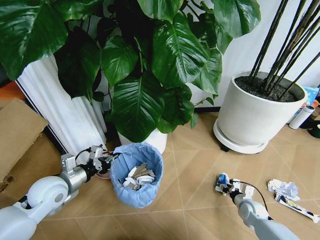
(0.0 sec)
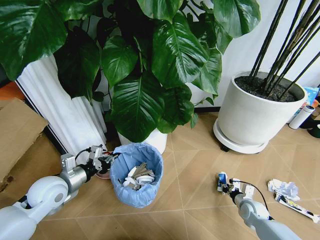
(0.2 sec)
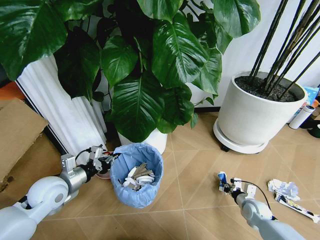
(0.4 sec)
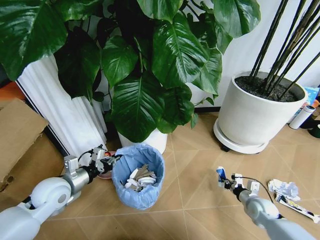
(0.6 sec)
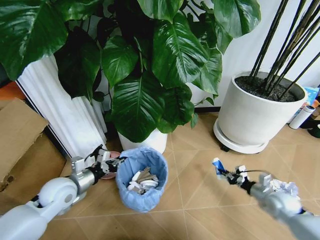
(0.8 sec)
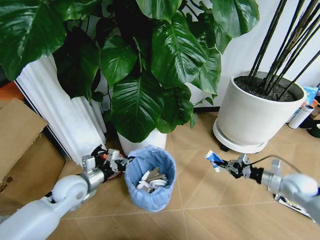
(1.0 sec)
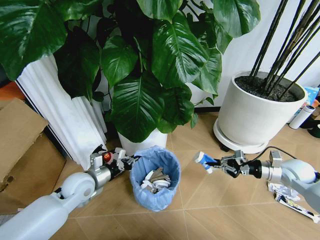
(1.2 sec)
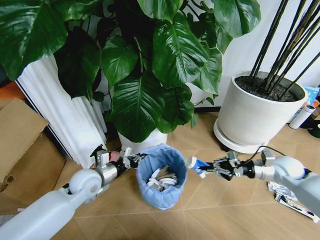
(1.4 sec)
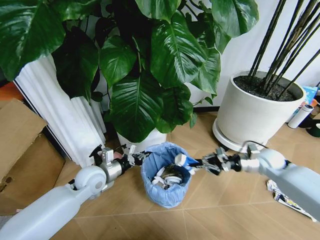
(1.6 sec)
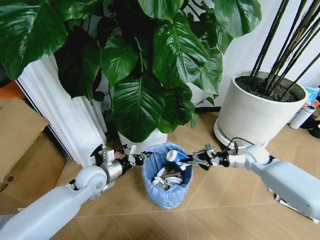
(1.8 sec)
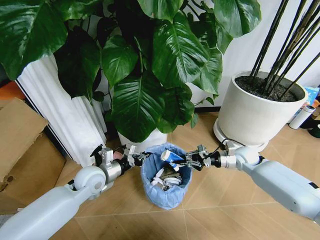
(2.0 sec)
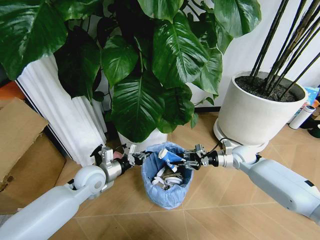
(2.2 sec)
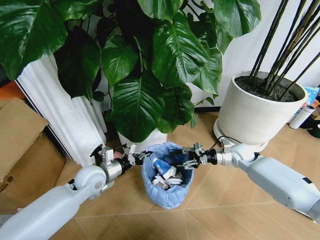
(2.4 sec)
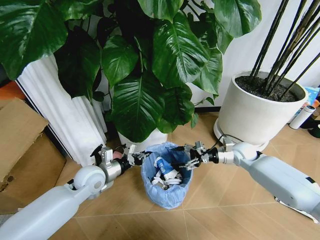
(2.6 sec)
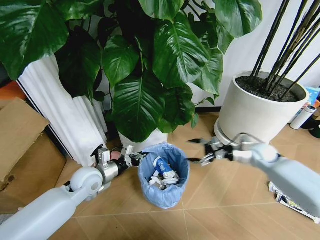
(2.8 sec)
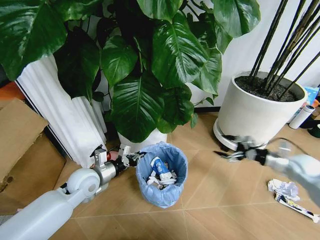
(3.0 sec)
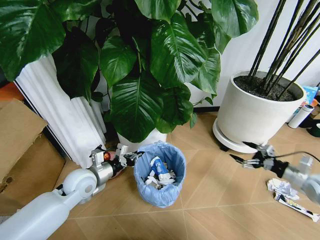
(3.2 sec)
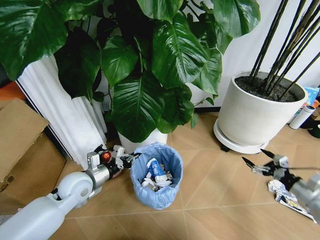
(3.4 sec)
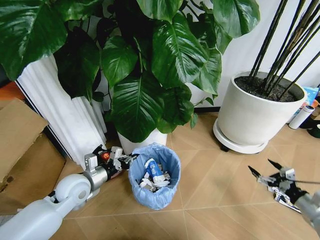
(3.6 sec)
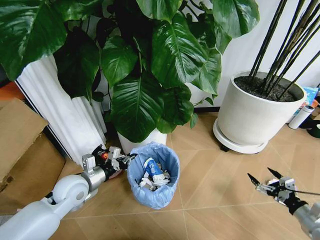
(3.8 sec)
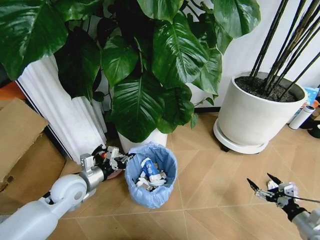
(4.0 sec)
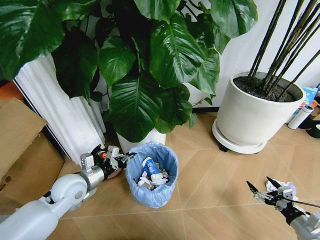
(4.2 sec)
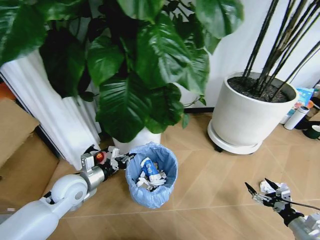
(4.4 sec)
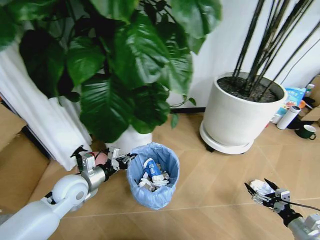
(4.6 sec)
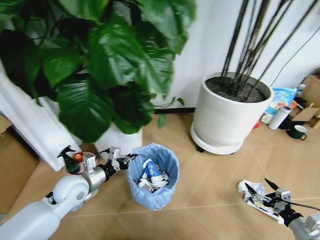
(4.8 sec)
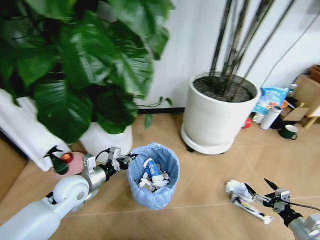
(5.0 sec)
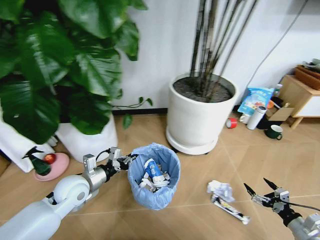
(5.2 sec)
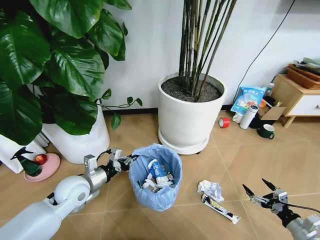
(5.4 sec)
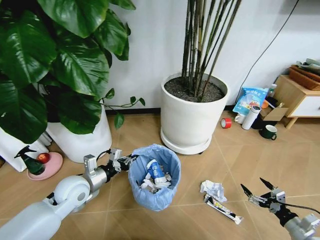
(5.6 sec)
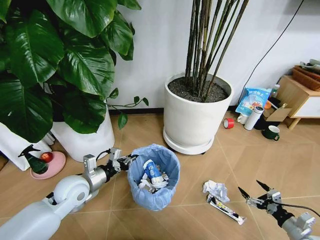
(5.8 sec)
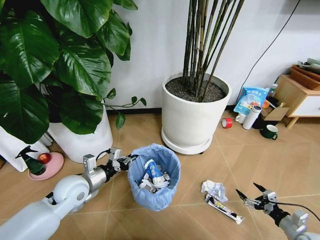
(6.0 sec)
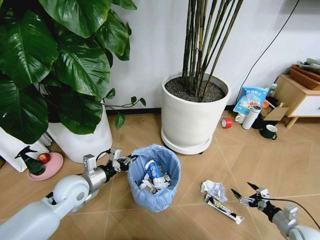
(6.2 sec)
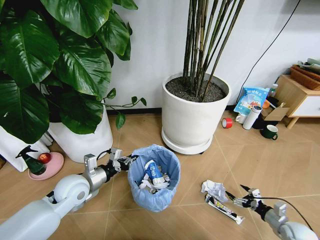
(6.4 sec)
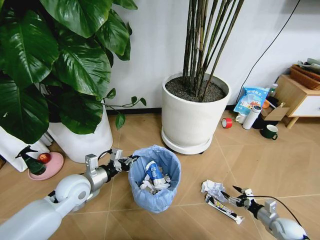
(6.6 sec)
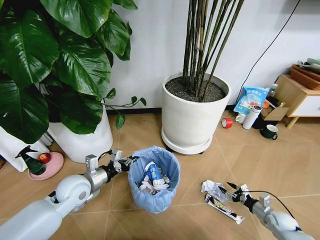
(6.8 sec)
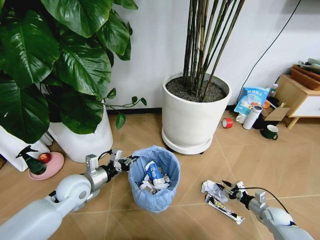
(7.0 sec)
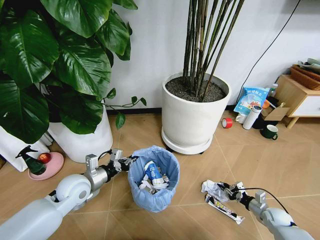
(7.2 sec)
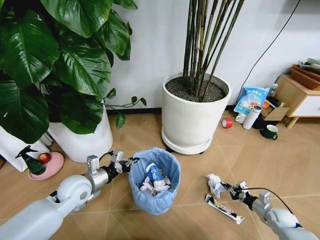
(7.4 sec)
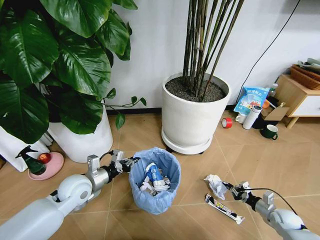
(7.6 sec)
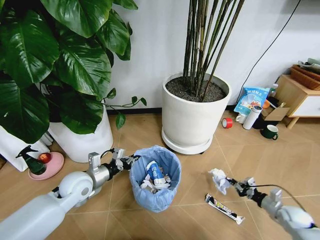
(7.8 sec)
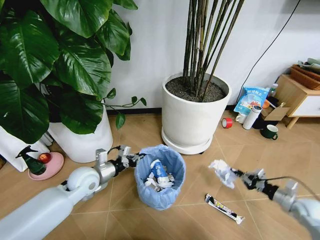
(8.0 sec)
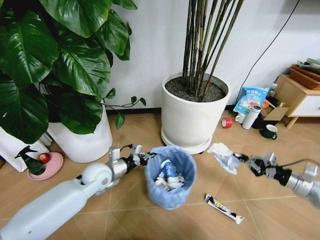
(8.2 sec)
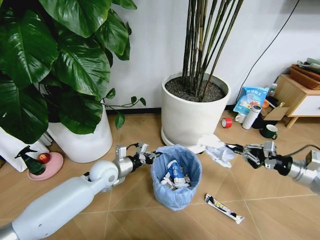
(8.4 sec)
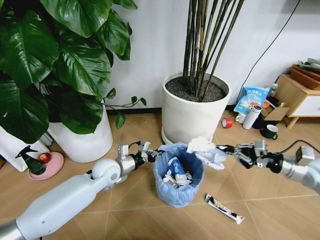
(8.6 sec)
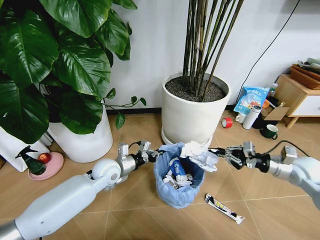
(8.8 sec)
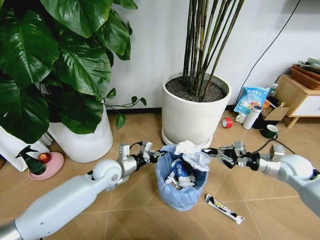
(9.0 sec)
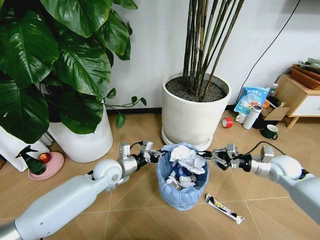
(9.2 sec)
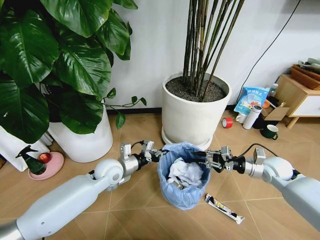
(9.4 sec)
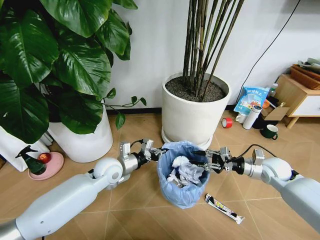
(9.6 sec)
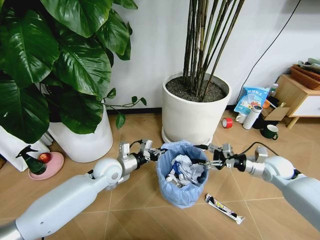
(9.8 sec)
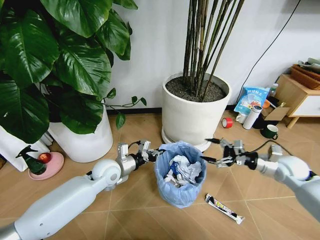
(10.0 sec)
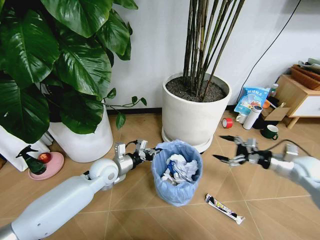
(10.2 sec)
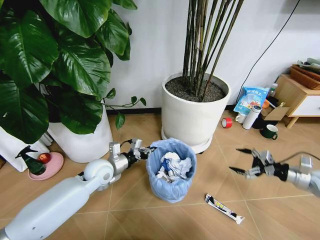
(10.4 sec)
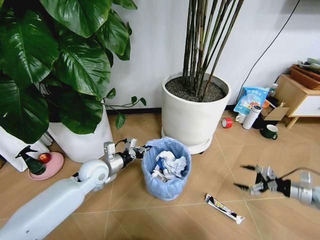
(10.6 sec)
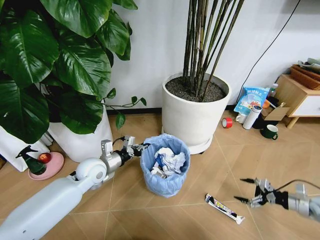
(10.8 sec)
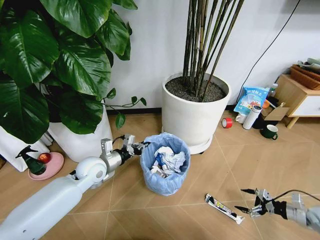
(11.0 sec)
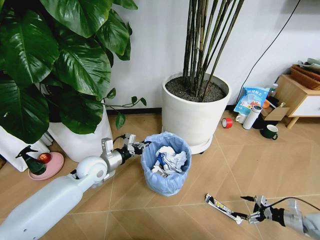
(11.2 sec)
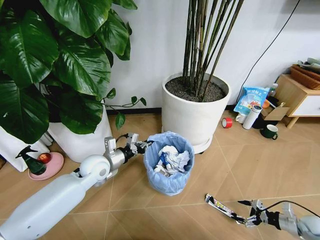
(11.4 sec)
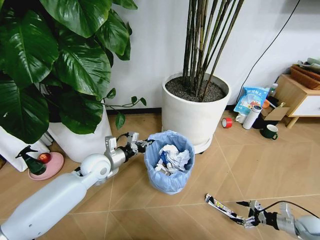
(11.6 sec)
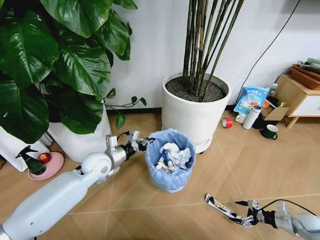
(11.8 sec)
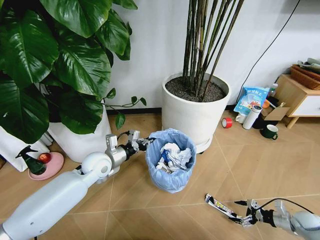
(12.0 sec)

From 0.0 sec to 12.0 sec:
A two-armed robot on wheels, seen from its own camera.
Task of the whole recording: Pick up the trash bin and place the garbage on the floor into it.
From 0.0 sec to 1.6 sec: The left gripper goes about 10 cm to the right and forward; the right gripper travels upward and forward by approximately 25 cm, and closes its fingers.
From 1.6 sec to 3.0 sec: The right gripper is displaced to the right by about 10 cm, and opens up.
From 3.0 sec to 4.4 sec: The right gripper is displaced backward and downward by roughly 25 cm.
From 6.0 sec to 7.6 sec: The right gripper moves forward and downward, some 10 cm, and closes up.
From 7.6 sec to 9.0 sec: The right gripper heads upward and forward, covering about 25 cm, while the left gripper travels to the right and forward by some 10 cm.
From 9.0 sec to 10.4 sec: The right gripper heads to the right, covering about 10 cm, and opens up.
From 10.4 sec to 12.0 sec: The right gripper shifts approximately 20 cm downward.

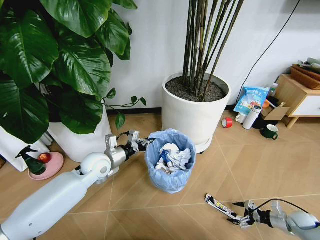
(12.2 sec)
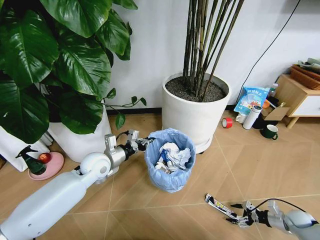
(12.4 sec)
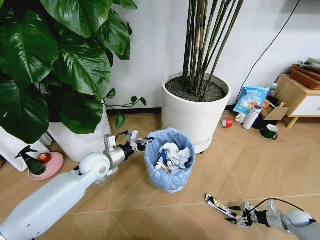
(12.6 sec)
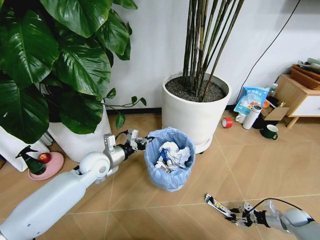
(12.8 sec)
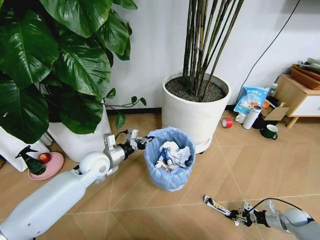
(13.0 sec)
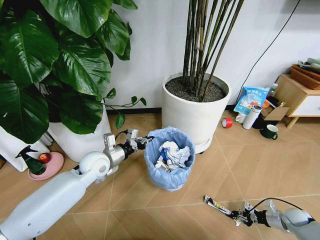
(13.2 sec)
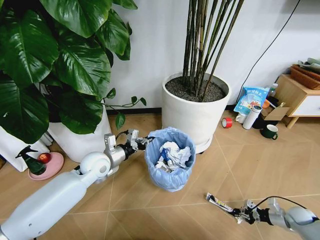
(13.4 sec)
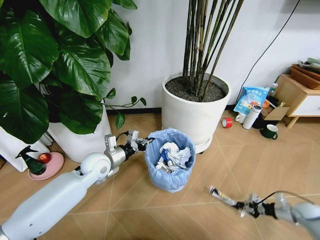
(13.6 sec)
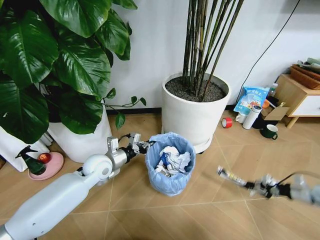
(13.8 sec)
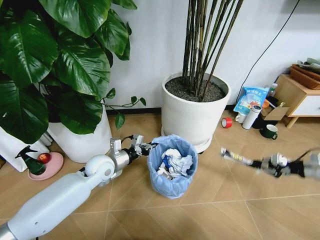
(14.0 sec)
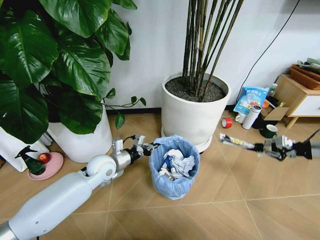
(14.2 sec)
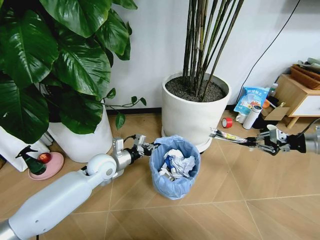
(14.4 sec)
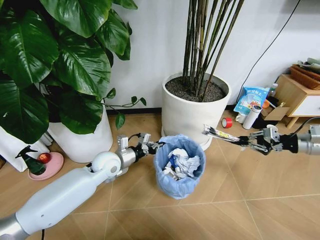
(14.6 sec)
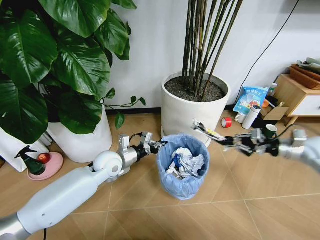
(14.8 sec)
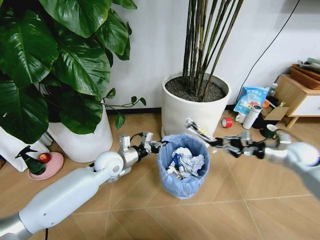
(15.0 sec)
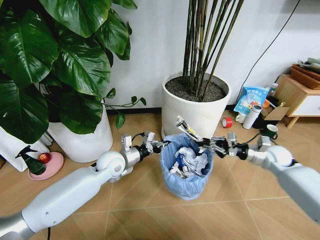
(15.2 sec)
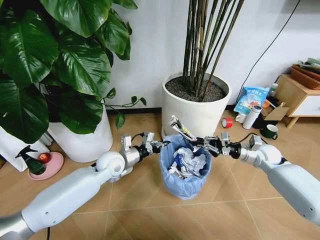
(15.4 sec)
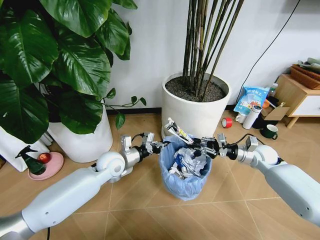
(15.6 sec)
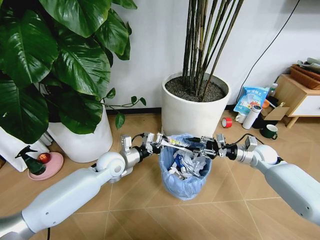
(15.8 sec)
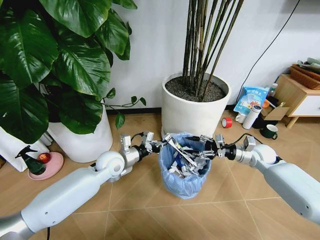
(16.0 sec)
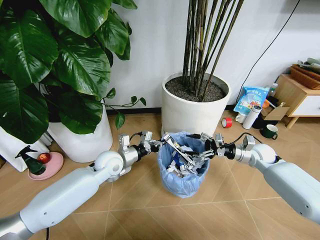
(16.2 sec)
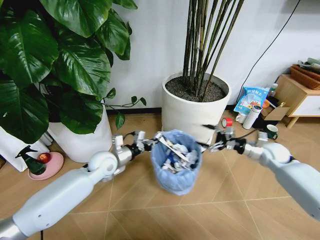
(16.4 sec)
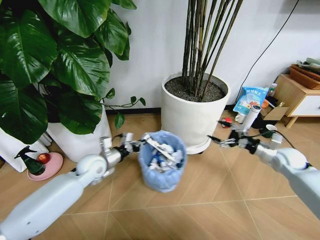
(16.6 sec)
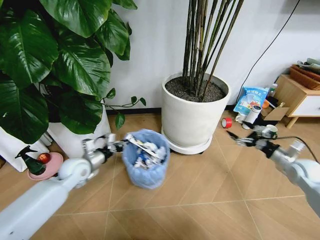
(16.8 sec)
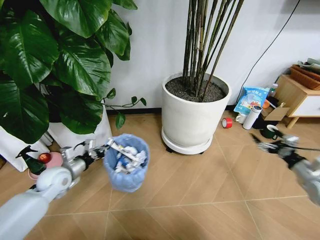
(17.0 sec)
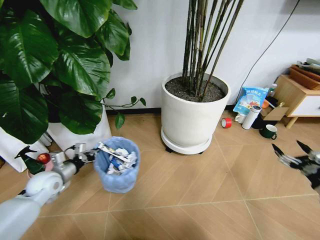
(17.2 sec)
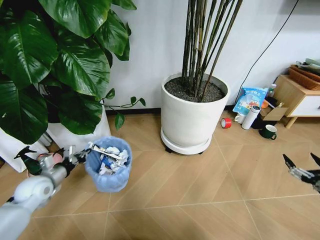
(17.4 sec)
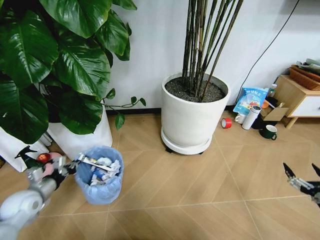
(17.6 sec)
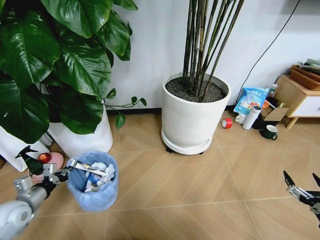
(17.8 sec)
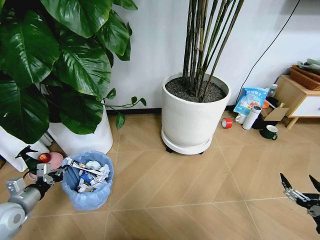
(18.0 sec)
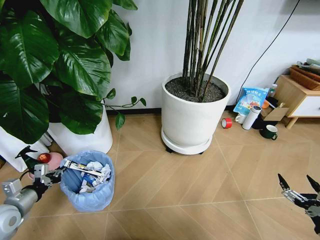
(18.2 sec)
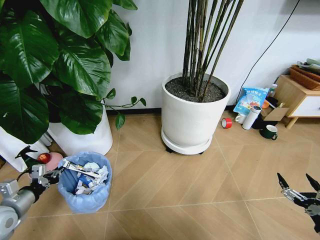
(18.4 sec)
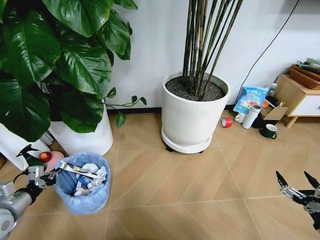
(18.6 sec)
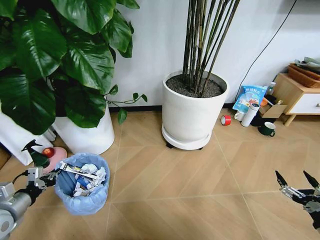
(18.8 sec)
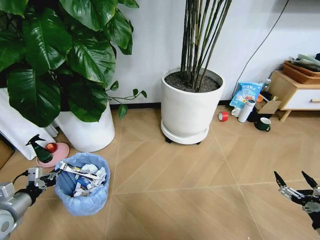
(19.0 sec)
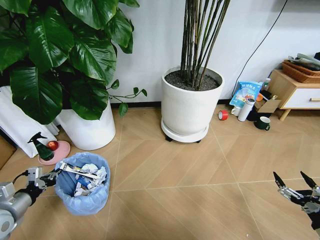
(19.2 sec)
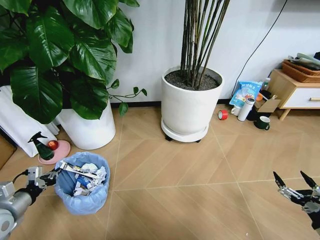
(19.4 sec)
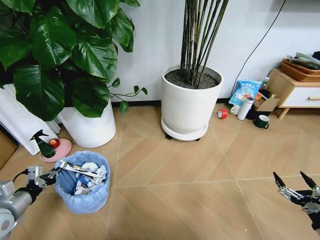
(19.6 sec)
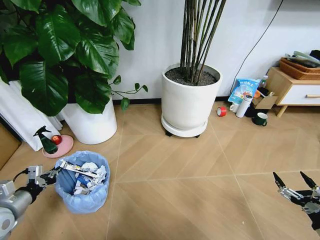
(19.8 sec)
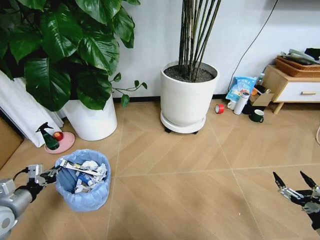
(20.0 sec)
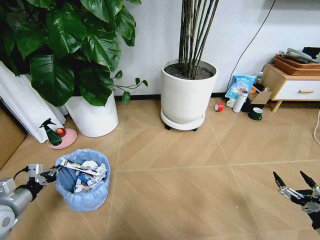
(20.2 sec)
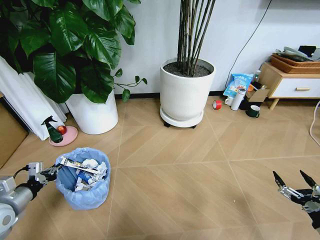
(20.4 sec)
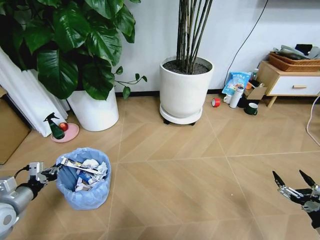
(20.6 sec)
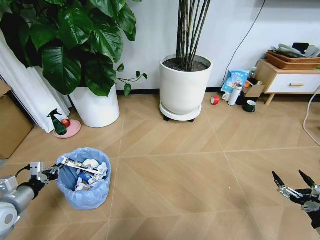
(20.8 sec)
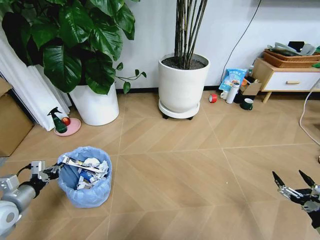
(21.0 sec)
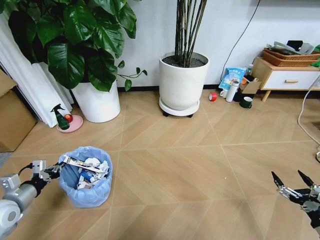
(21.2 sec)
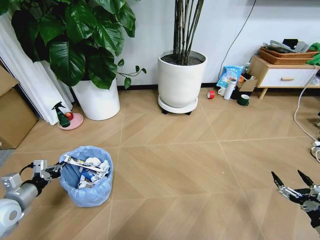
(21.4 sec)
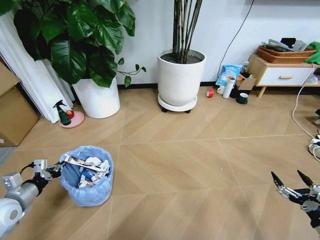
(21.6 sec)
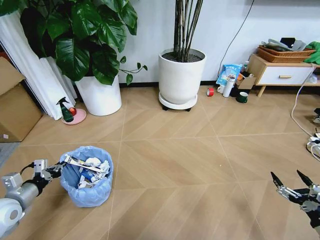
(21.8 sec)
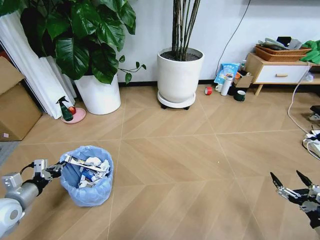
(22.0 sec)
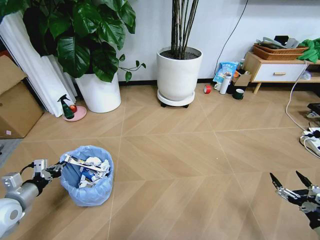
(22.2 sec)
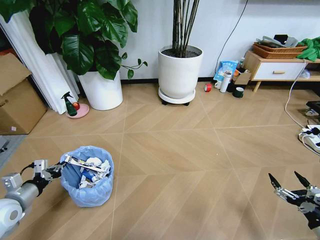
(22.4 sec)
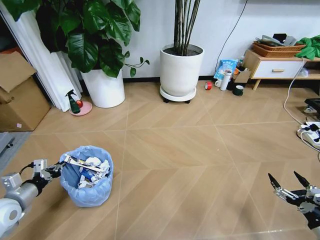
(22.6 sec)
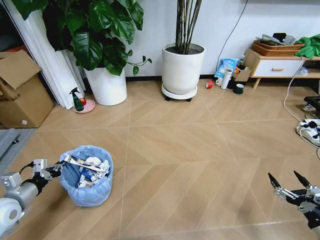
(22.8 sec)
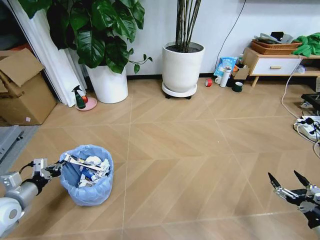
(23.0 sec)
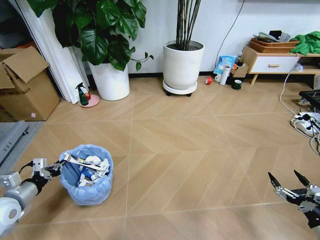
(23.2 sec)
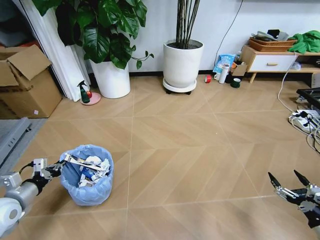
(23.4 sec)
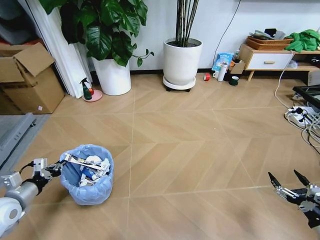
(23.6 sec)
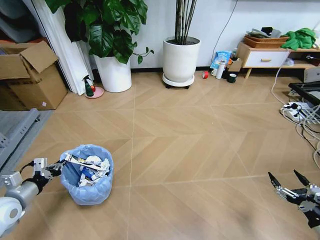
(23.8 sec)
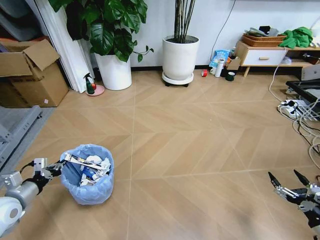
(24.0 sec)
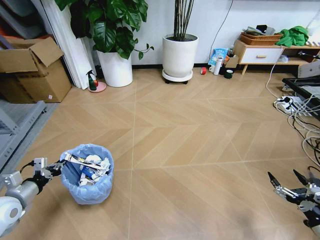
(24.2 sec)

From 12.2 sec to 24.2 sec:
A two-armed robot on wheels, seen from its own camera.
Task of the whole recording: Pick up the trash bin and place the garbage on the floor into it.
From 12.2 sec to 13.8 sec: The right gripper is displaced upward and forward by approximately 15 cm, and closes its fingers.
From 13.8 sec to 15.2 sec: The right gripper shifts some 25 cm to the left, forward and upward.
From 15.2 sec to 16.6 sec: The left gripper shifts some 5 cm to the left; the right gripper shifts by about 5 cm, and opens its fingers.
From 16.6 sec to 18.2 sec: The right gripper moves backward, roughly 30 cm, while the left gripper moves to the left and backward, roughly 25 cm.
